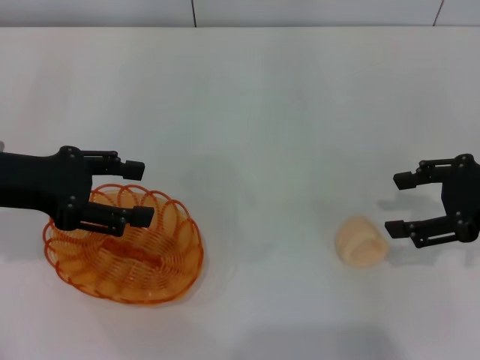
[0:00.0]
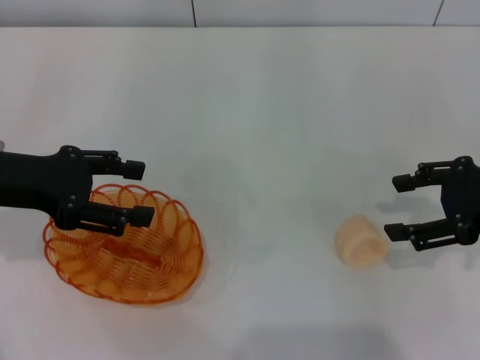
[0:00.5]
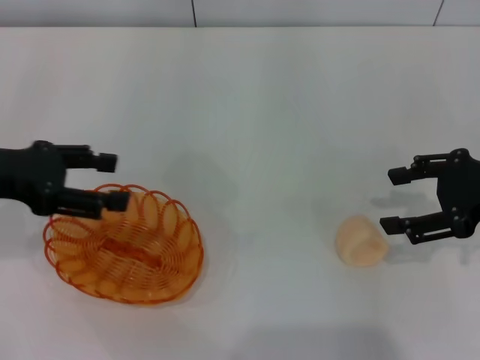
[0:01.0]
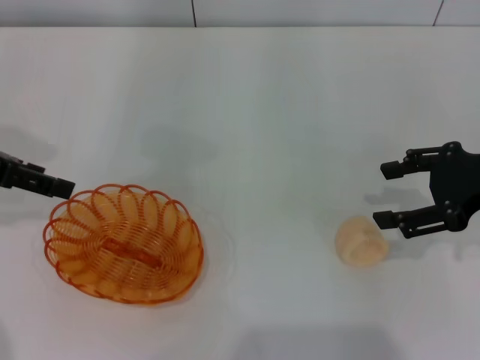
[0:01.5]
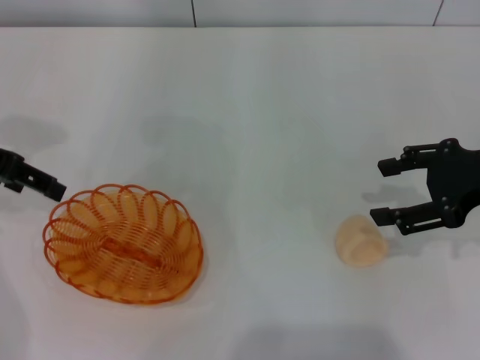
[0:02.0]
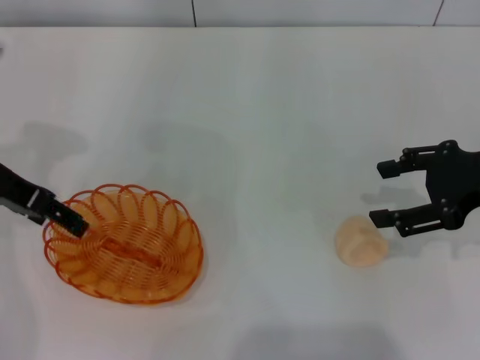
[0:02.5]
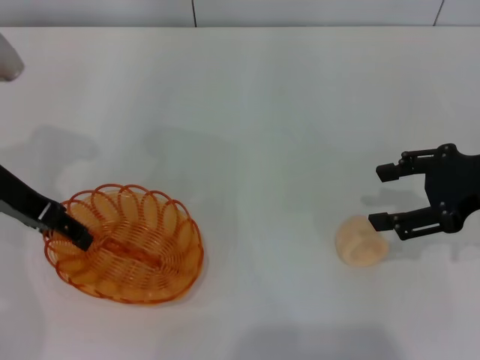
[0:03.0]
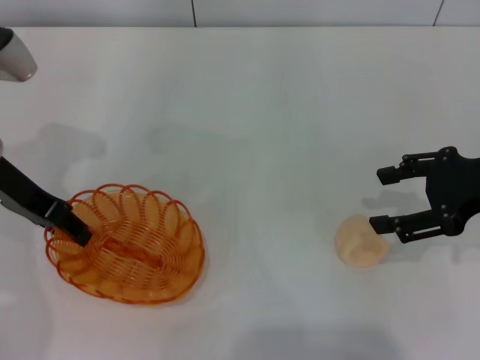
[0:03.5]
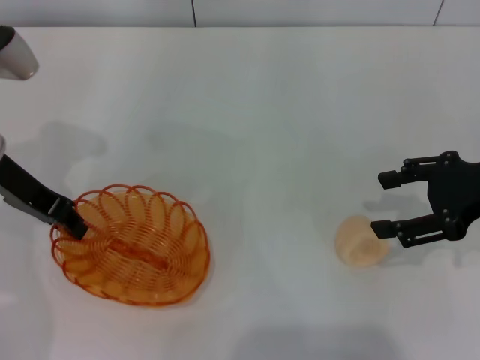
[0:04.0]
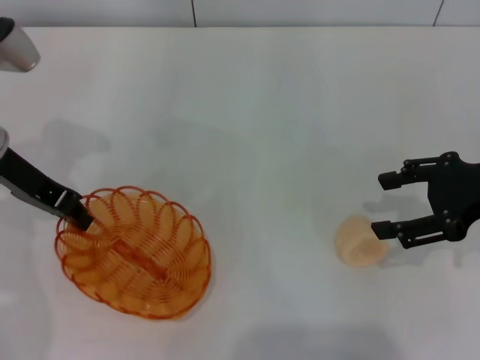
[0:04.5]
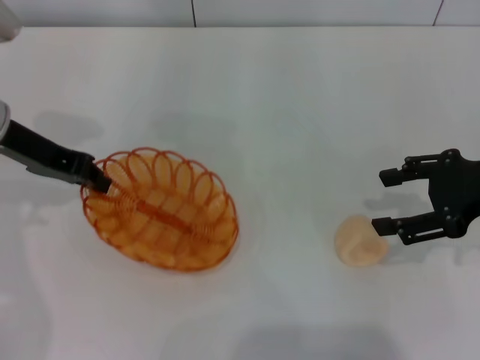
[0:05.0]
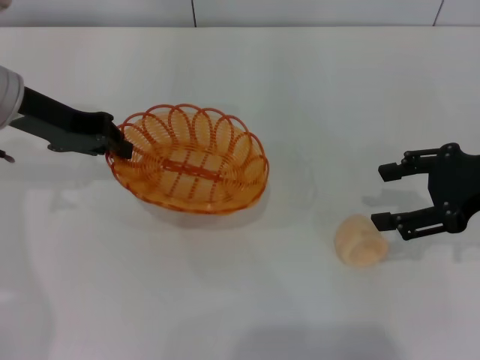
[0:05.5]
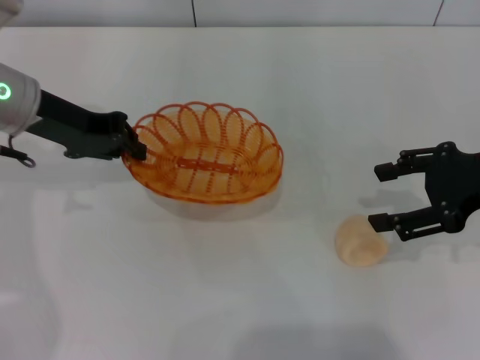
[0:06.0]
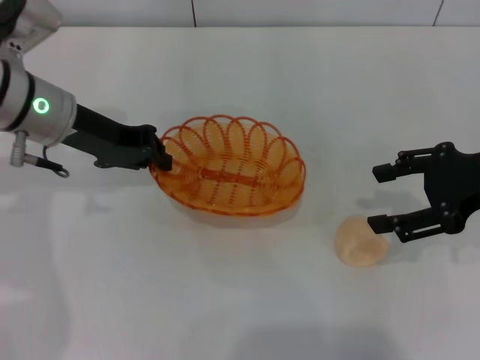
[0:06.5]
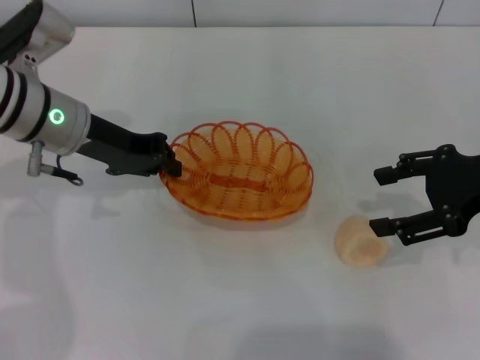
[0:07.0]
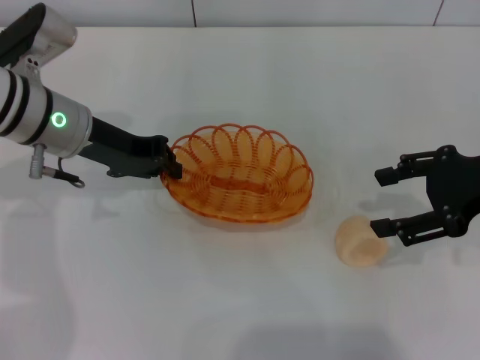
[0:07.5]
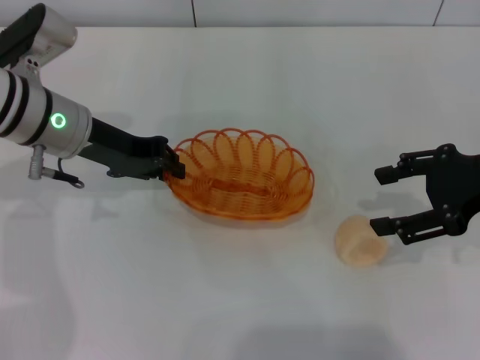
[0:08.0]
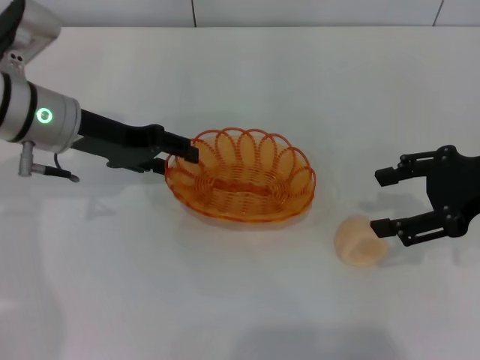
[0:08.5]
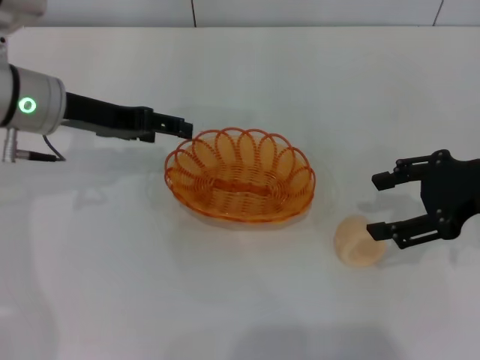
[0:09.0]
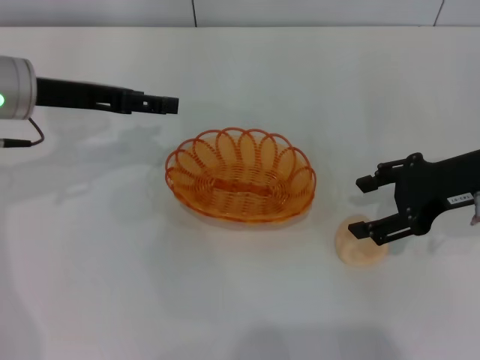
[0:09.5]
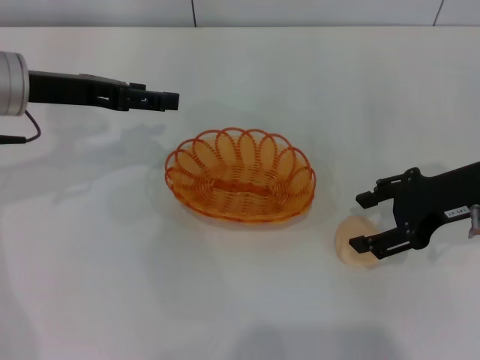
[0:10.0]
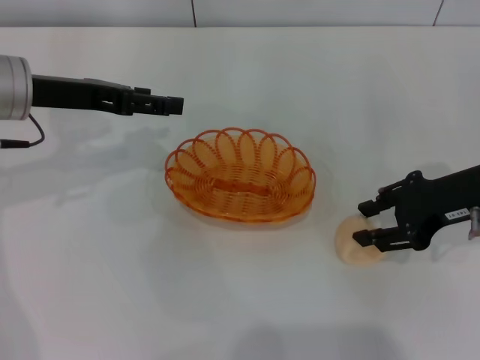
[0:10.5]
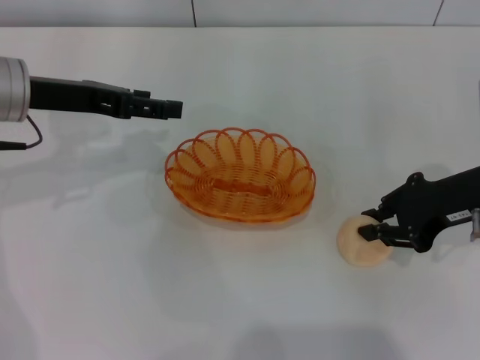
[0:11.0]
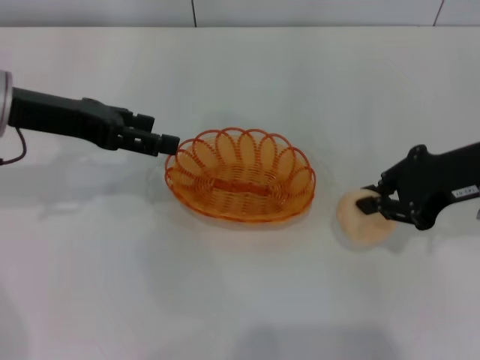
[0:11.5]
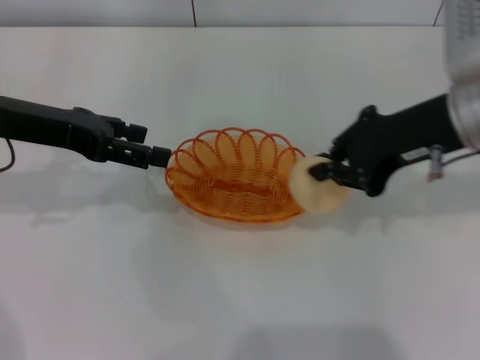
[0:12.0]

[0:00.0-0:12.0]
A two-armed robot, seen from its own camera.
Step, 0:00.0 to 0:05.5: Pick up the basket with the left gripper.
Step, 0:06.0 to 0:09.0: Place the basket in the center of view with the left gripper.
Step, 0:09.5 to 0:11.5: Pick up the egg yolk pastry with the right gripper.
0:00.0 to 0:02.0: The left gripper travels forward by some 5 cm.
0:02.0 to 0:04.0: The left gripper goes about 5 cm downward, and closes up.
0:06.0 to 0:08.0: The left gripper moves approximately 5 cm.
0:08.0 to 0:10.0: The left gripper ends up roughly 5 cm from where it was, and opens.
0:10.0 to 0:12.0: The right gripper heads upward and to the left, covering about 10 cm, and closes its fingers.

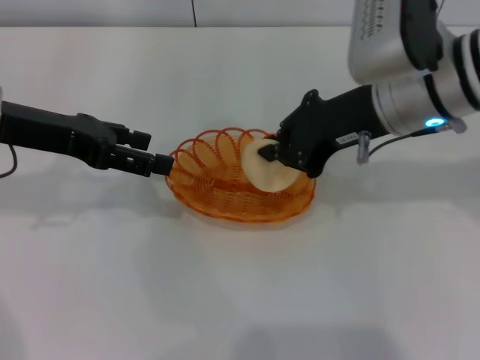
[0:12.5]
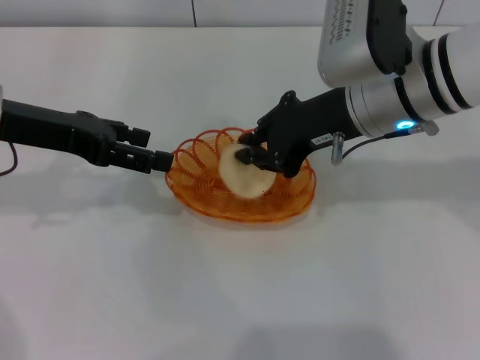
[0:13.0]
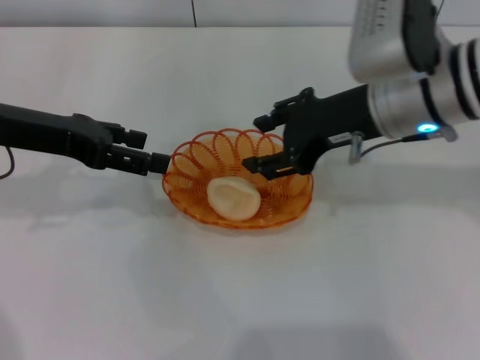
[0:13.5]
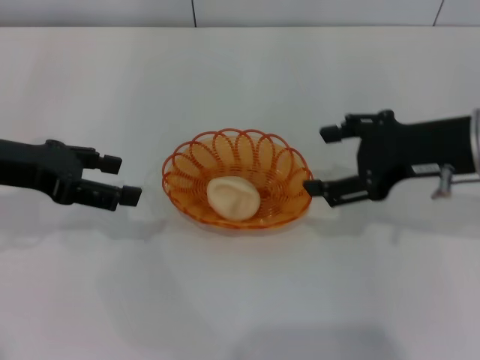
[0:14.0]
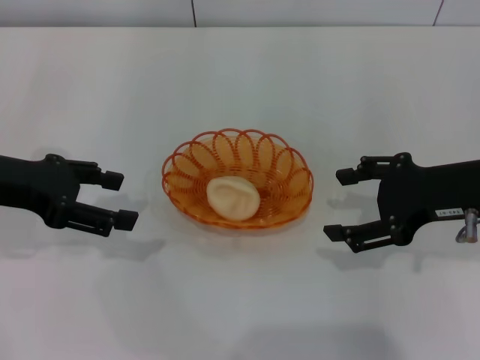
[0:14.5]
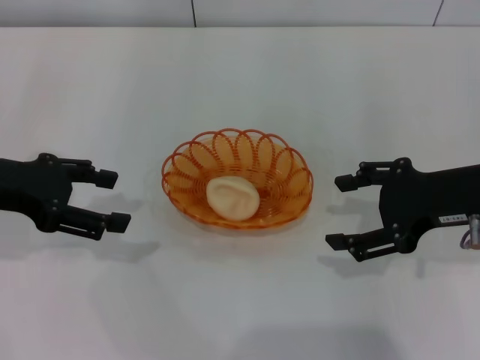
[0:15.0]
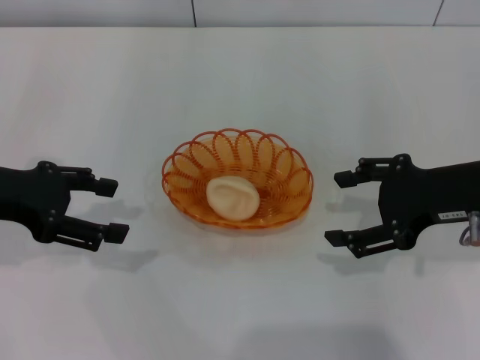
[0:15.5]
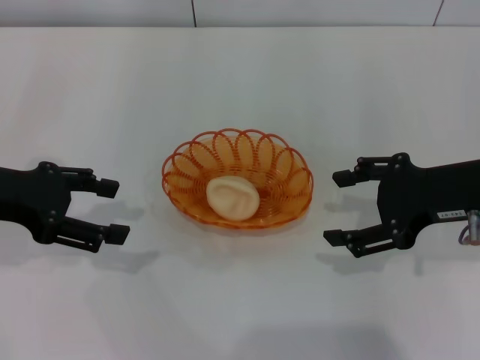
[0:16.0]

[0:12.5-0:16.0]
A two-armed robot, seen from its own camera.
Step, 0:12.5 to 0:13.5: Place the egg yolk pastry into the basket with the right gripper.
0:12.5 to 0:14.5: The left gripper changes place by roughly 5 cm, while the right gripper heads to the right and backward, covering about 10 cm, and opens.
0:14.5 to 0:16.0: The two grippers keep their place.

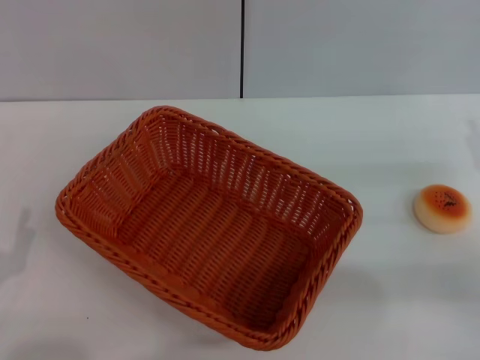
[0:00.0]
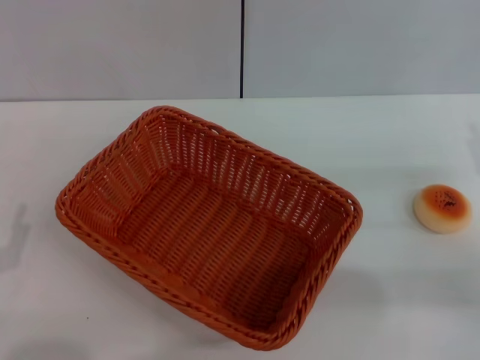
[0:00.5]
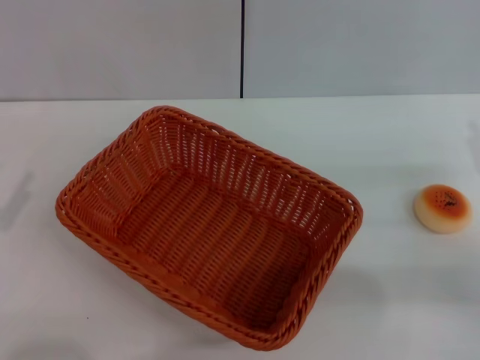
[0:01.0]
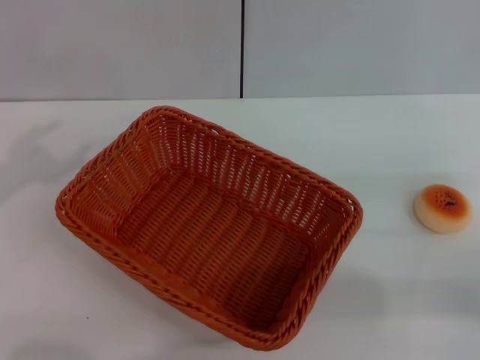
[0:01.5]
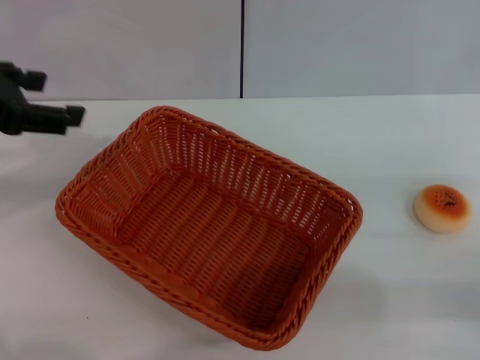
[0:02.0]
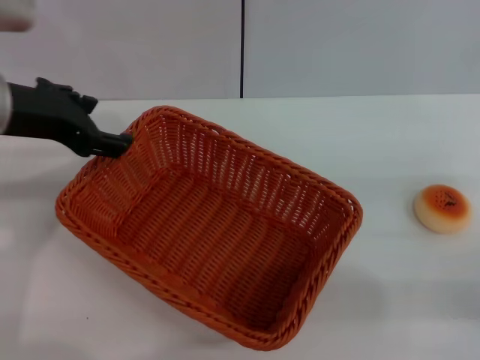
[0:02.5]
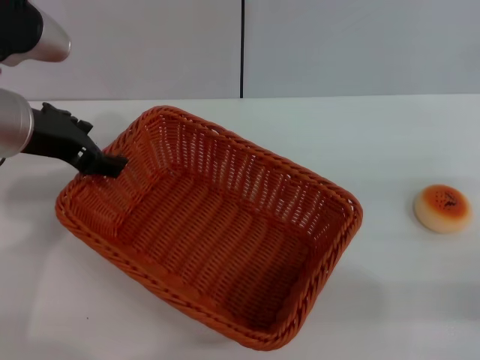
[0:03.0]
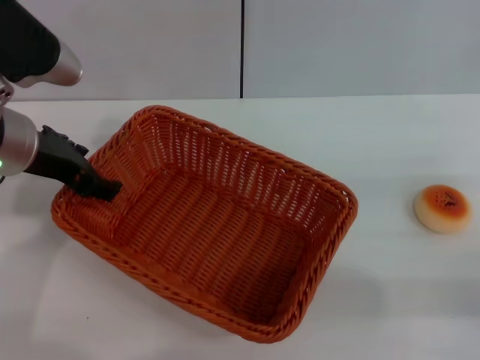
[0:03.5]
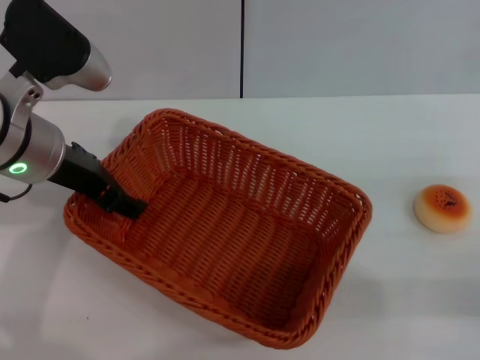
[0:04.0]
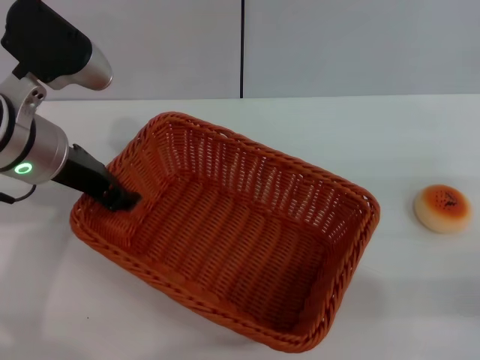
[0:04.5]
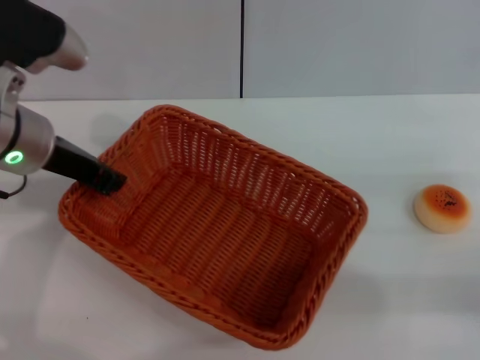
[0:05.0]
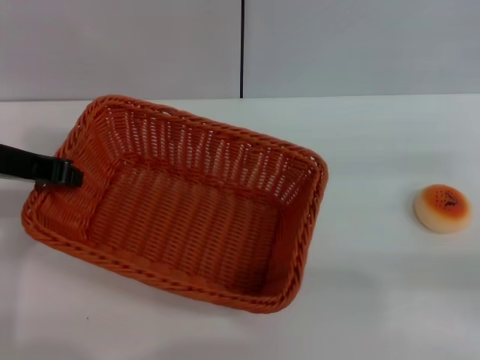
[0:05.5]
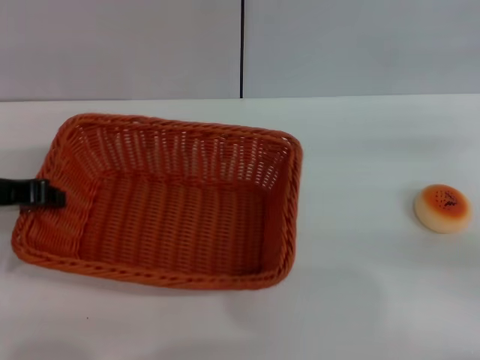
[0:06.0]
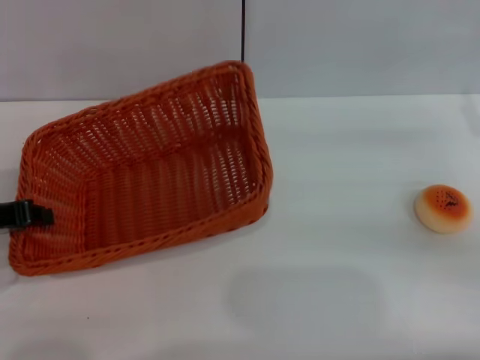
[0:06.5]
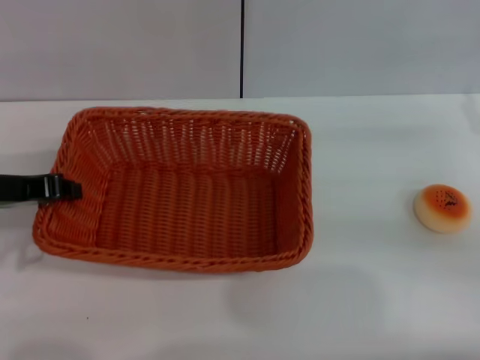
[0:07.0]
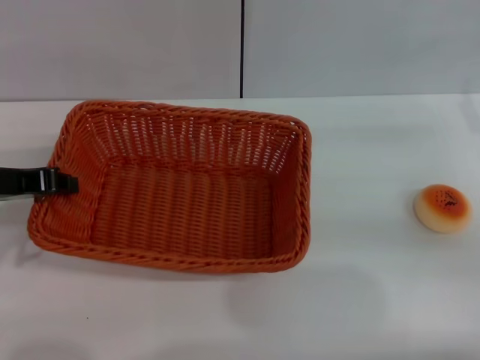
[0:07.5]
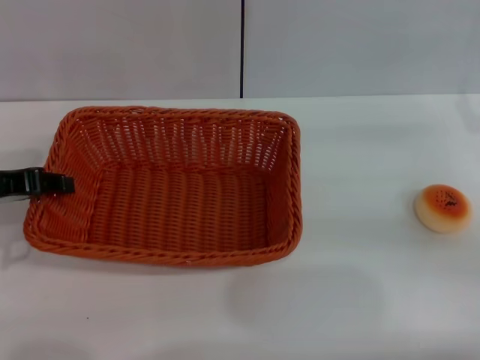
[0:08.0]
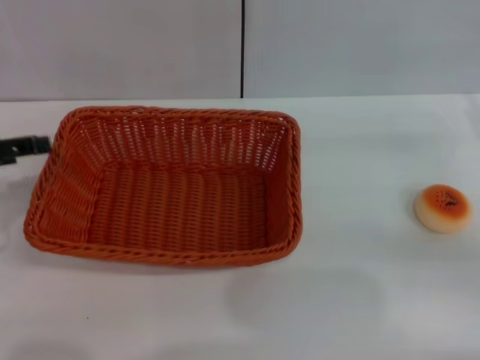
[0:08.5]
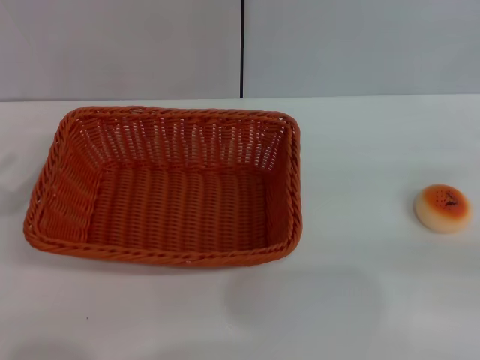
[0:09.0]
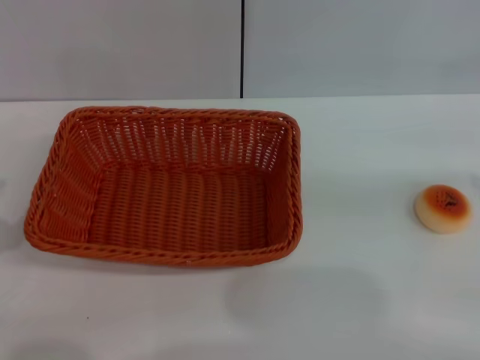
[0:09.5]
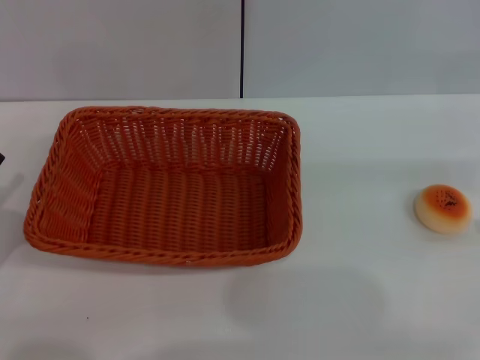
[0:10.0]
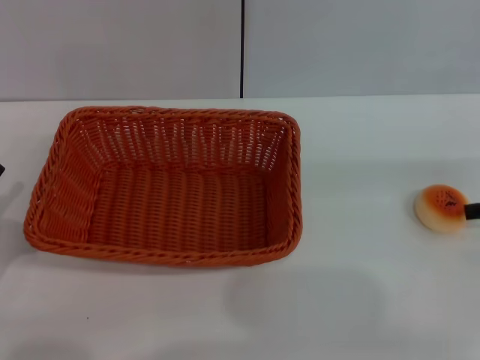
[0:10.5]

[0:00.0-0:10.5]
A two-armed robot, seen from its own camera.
Step, 0:00.0 to 0:08.5: Move the basket to the center of view with the left gripper.
0:00.0 to 0:02.0: The left gripper moves upward and forward, about 30 cm.
0:02.0 to 0:04.0: The left gripper goes approximately 10 cm to the right and downward.
0:04.0 to 0:06.5: The right gripper travels forward by some 5 cm. The left gripper moves to the left and backward, approximately 10 cm, and closes up.
0:06.5 to 0:08.5: The left gripper changes place by approximately 5 cm, and opens.
0:08.5 to 0:10.5: The left gripper travels downward and backward by about 15 cm. The right gripper moves some 10 cm upward and comes back.
